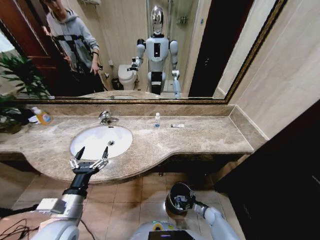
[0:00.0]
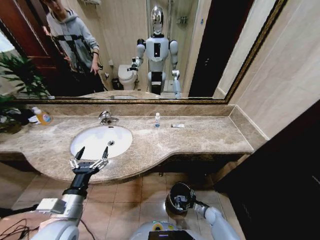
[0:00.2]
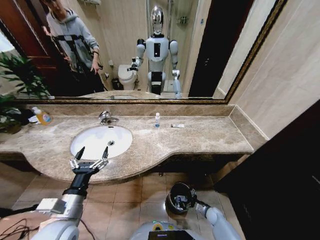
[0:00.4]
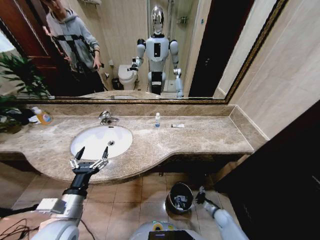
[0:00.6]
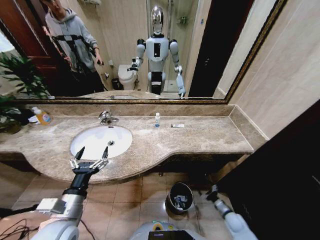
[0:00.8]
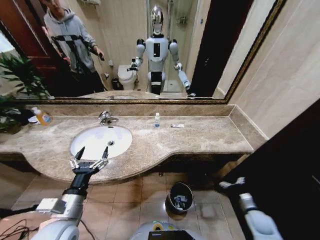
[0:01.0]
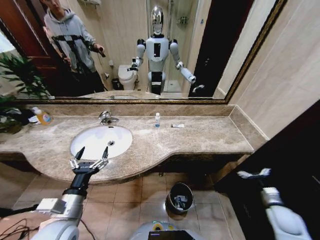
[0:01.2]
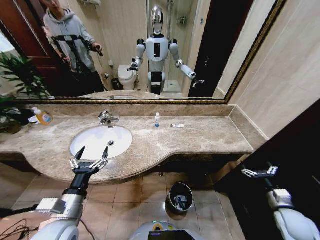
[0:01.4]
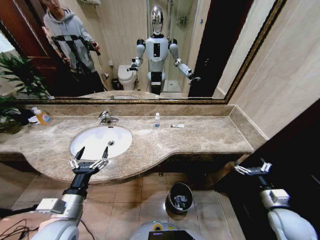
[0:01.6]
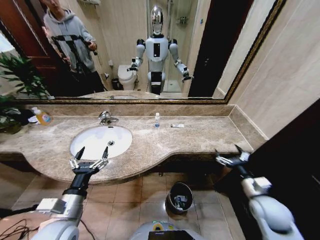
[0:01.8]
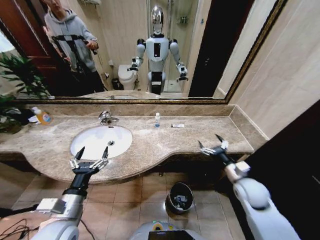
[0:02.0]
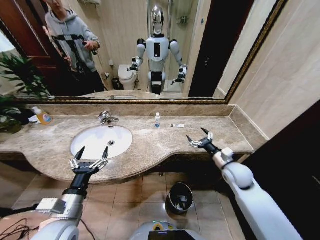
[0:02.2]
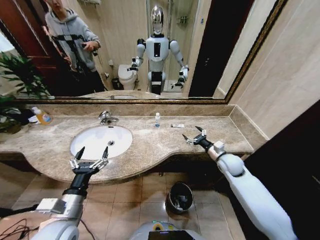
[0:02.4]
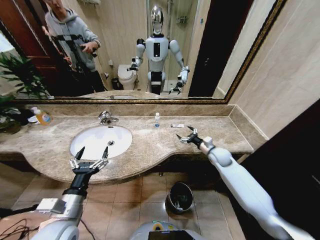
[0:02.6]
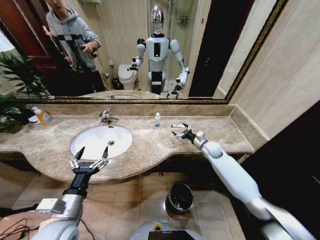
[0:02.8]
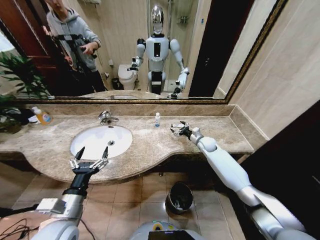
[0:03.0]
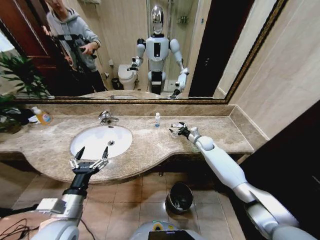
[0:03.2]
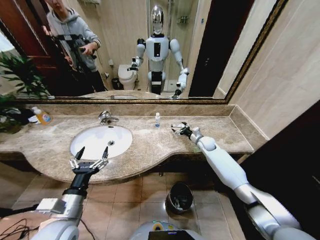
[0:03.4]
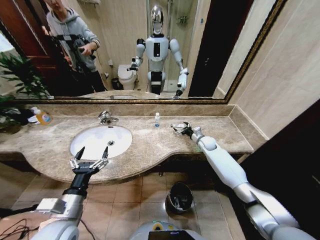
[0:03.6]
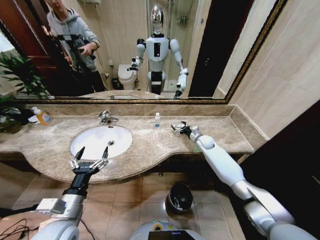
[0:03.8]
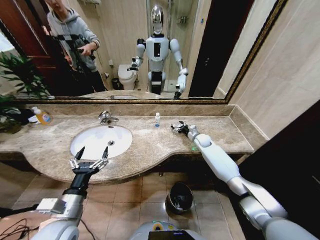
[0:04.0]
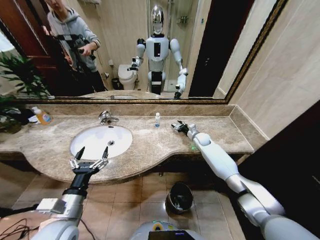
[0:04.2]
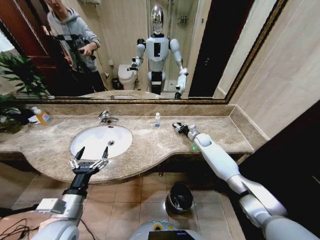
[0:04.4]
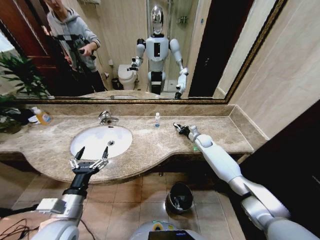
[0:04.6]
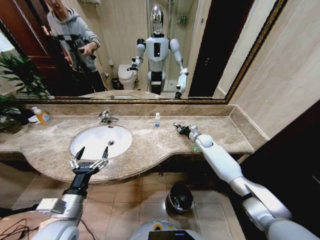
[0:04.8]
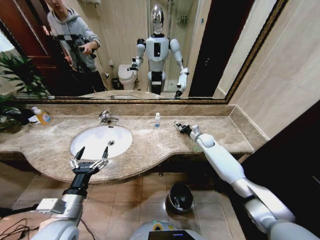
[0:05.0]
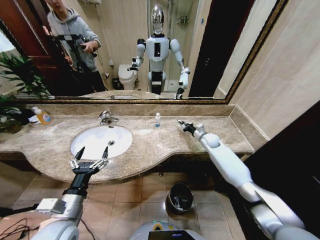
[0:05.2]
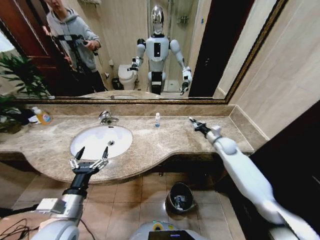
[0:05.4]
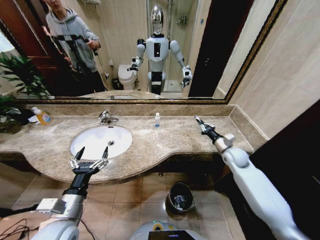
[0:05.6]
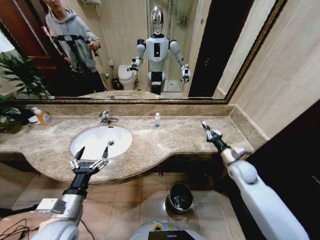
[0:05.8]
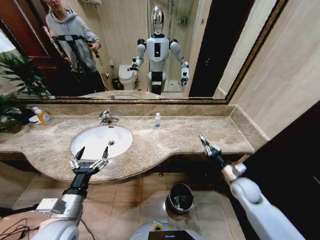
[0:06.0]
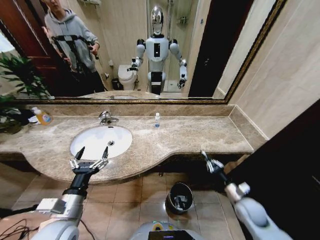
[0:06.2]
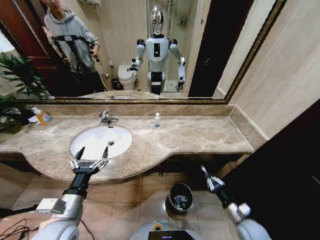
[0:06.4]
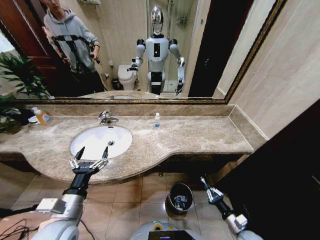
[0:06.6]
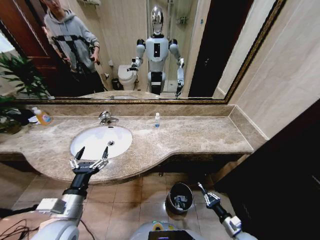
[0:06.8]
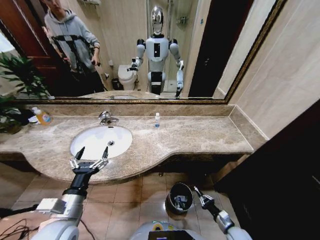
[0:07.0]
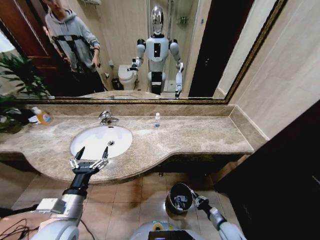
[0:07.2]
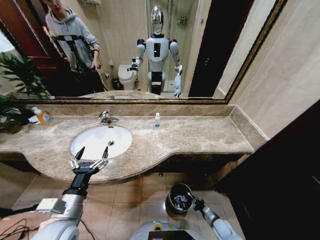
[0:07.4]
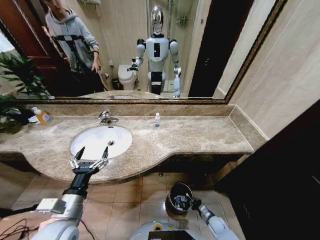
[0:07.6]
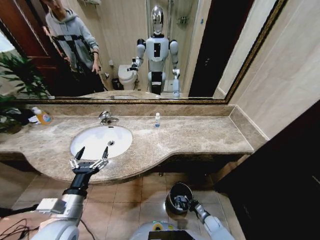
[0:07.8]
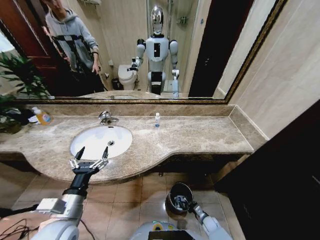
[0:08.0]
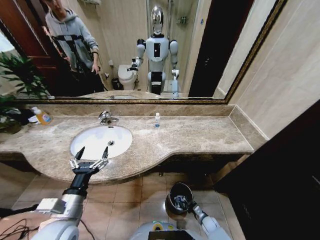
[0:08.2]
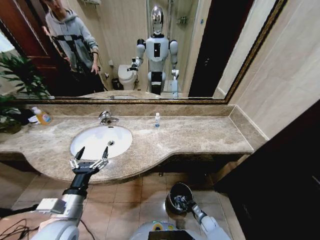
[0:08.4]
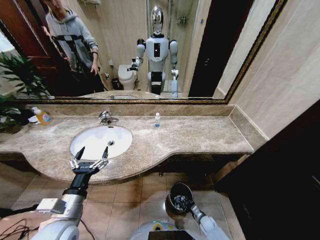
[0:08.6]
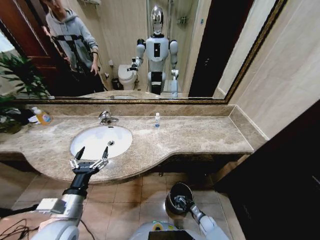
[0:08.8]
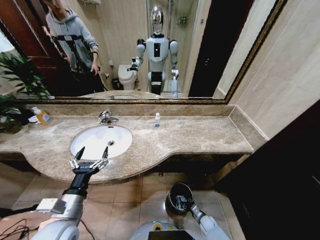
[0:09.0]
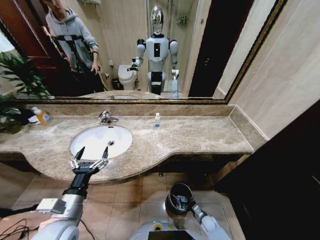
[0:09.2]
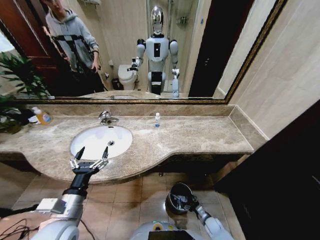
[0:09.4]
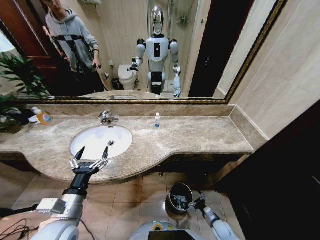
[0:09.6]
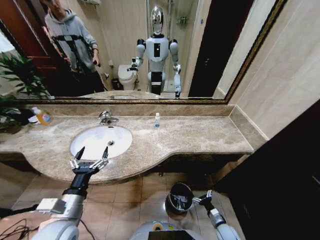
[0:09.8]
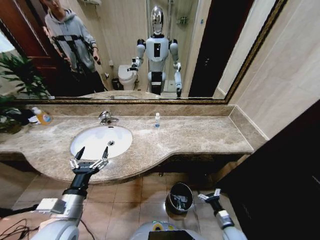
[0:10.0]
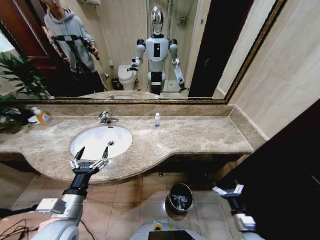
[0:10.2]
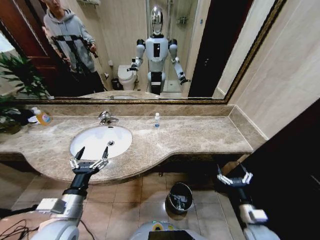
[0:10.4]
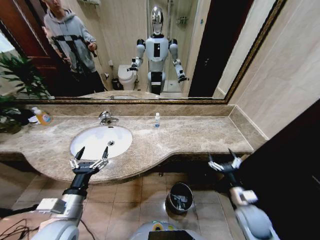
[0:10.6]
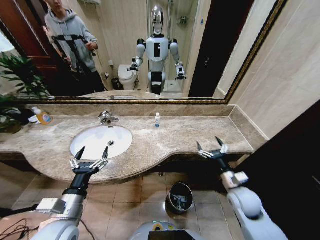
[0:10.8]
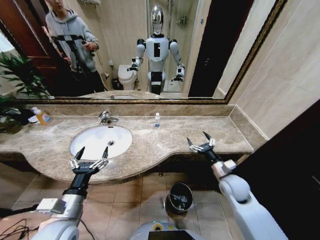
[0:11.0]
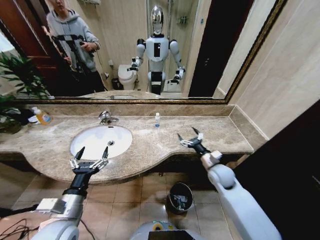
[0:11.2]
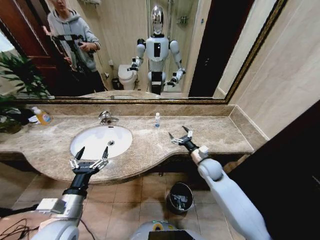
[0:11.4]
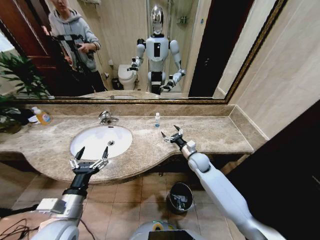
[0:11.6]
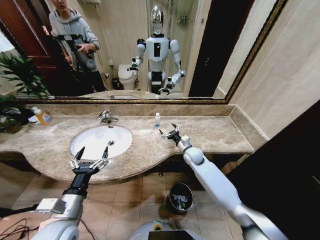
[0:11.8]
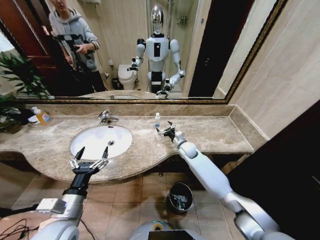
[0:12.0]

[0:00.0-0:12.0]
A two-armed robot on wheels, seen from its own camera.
Task of the whole recording: Pick up the trash from the sink and place it in the trash bin.
0.0 to 1.6 s: The right gripper is displaced upward by some 35 cm.
1.6 to 3.0 s: The right gripper travels forward and to the left by approximately 40 cm.
3.0 to 4.4 s: The right gripper closes its fingers.
4.4 to 6.0 s: The right gripper shifts roughly 25 cm backward, and closes.
6.0 to 7.6 s: The right gripper shifts roughly 30 cm downward.
7.6 to 9.0 s: The grippers stay close to where they were, moving slightly.
9.0 to 10.4 s: The right gripper moves upward, about 30 cm, and opens its fingers.
10.4 to 12.0 s: The right gripper travels forward and to the left by approximately 40 cm.

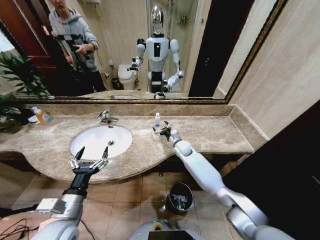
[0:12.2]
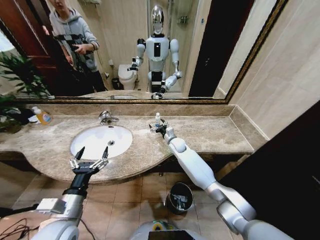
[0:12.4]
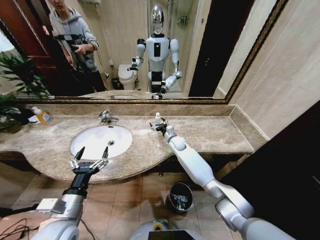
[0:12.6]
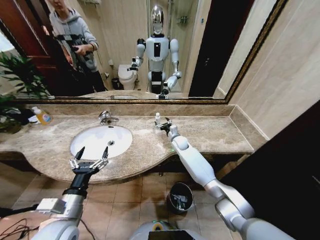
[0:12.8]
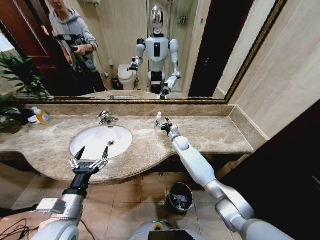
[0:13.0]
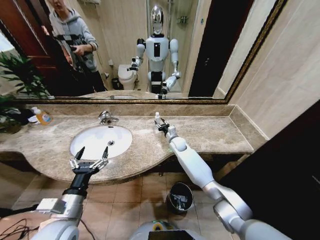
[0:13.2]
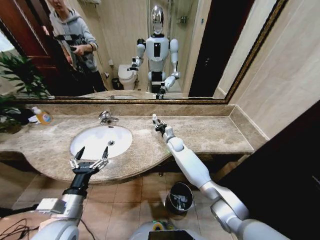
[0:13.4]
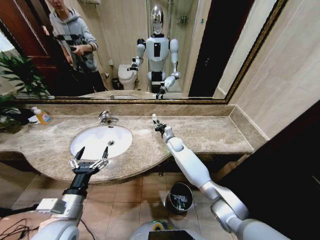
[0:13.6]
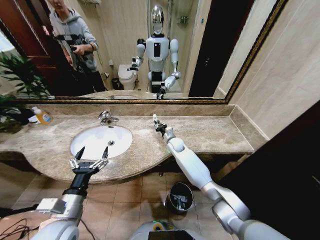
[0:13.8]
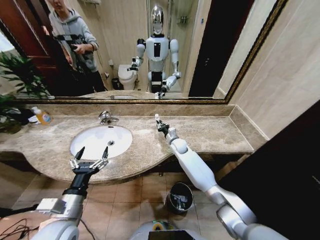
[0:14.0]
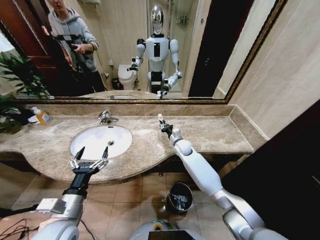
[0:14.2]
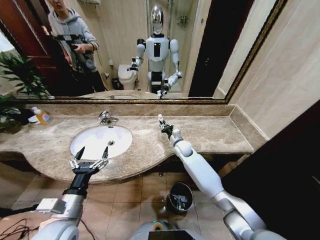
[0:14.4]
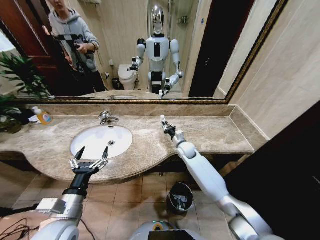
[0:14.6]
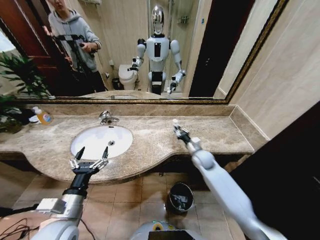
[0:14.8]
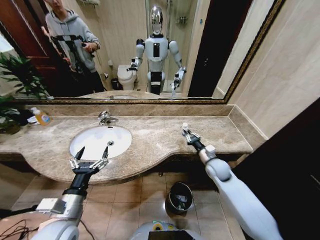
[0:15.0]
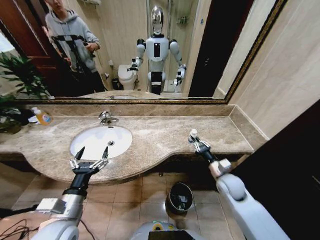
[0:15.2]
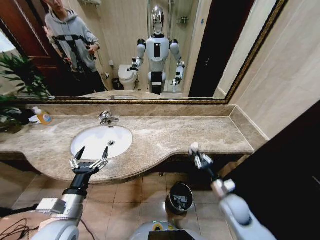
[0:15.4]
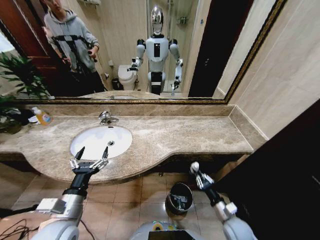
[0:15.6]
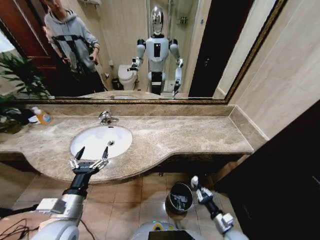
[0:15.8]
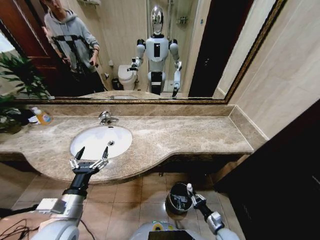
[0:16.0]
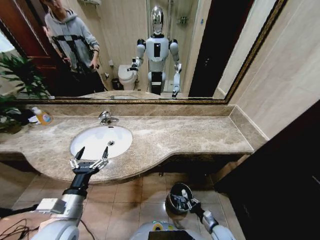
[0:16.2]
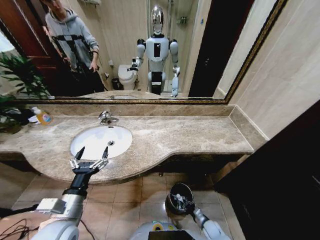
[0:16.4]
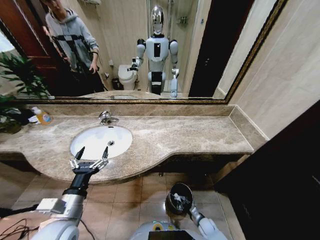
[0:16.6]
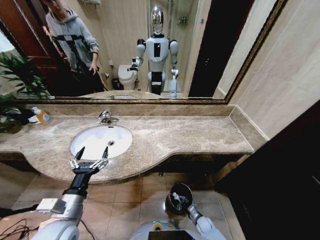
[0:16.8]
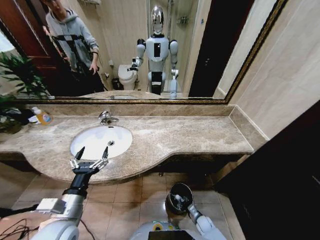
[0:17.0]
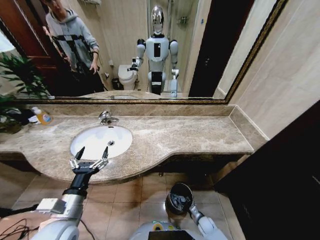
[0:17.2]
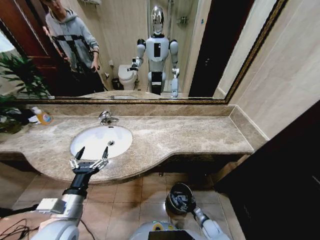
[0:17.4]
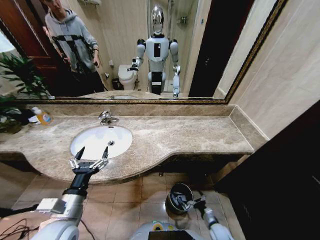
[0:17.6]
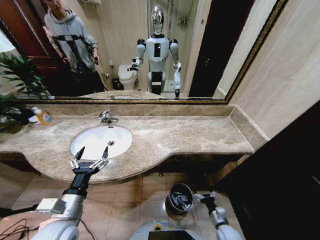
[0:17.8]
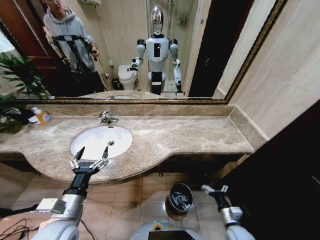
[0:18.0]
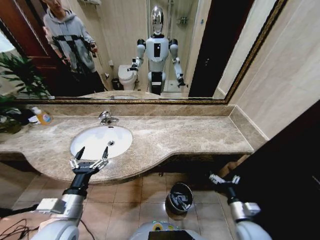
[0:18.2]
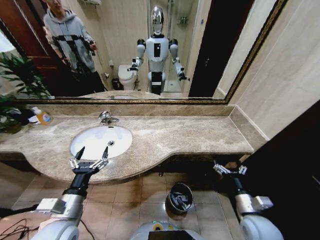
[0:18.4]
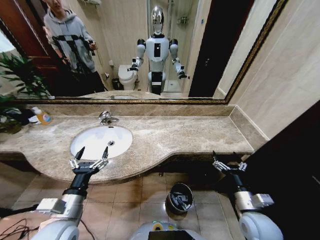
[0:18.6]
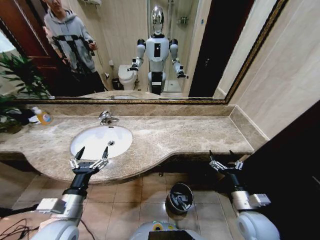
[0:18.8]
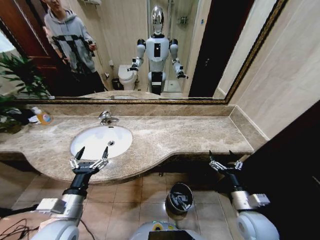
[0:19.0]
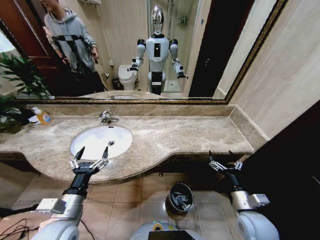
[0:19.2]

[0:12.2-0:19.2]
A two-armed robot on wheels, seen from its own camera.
Task of the whole recording: Pick up the trash from the sink and place it in the trash bin.
12.2 to 13.6 s: The right gripper closes its fingers.
13.6 to 15.0 s: The right gripper goes some 25 cm to the right and backward.
15.0 to 16.4 s: The right gripper moves downward and backward, approximately 35 cm.
16.4 to 17.8 s: The right gripper moves upward, roughly 10 cm, and opens.
17.8 to 19.2 s: The right gripper travels upward by approximately 25 cm.

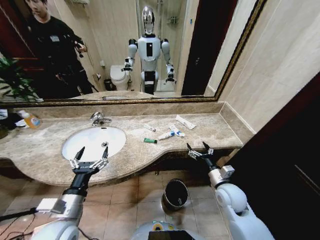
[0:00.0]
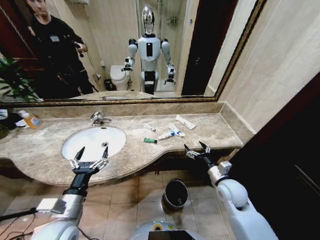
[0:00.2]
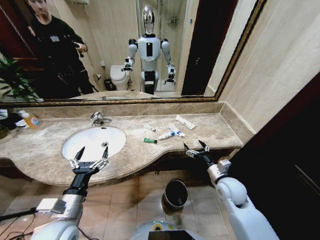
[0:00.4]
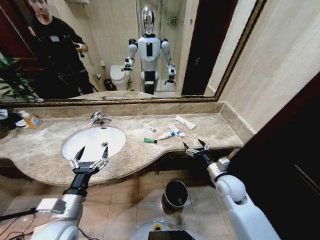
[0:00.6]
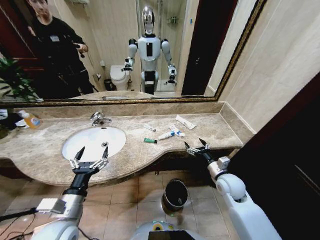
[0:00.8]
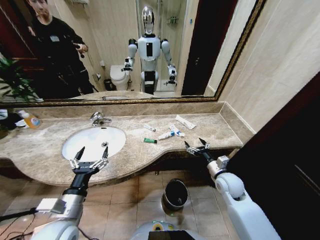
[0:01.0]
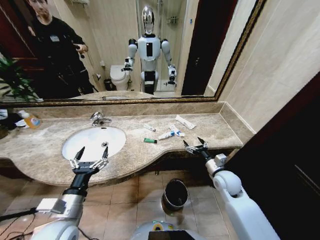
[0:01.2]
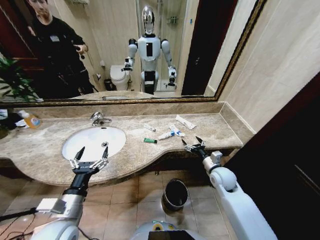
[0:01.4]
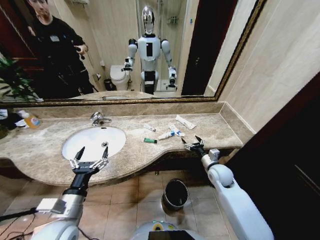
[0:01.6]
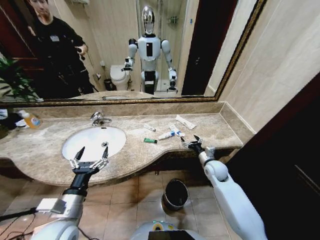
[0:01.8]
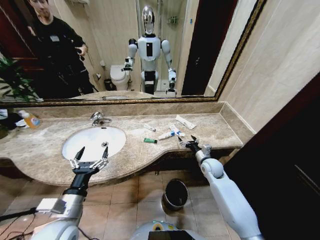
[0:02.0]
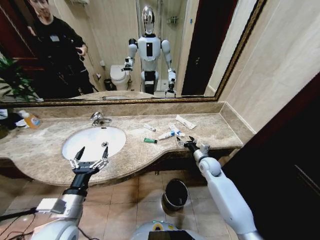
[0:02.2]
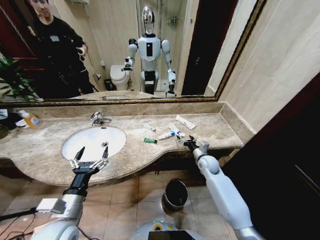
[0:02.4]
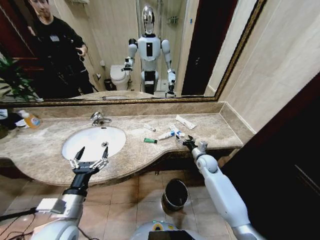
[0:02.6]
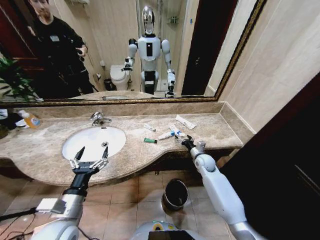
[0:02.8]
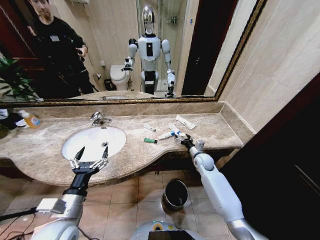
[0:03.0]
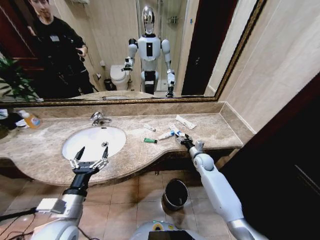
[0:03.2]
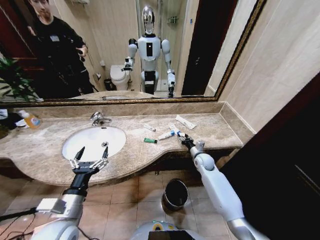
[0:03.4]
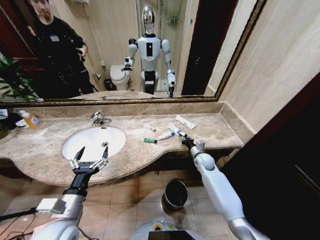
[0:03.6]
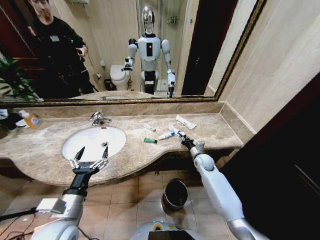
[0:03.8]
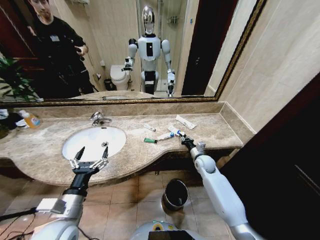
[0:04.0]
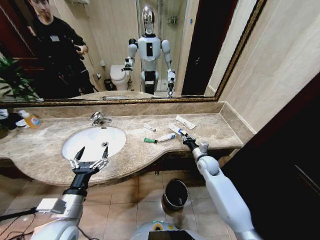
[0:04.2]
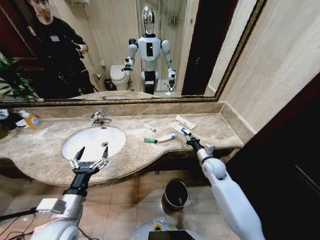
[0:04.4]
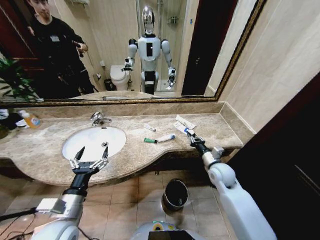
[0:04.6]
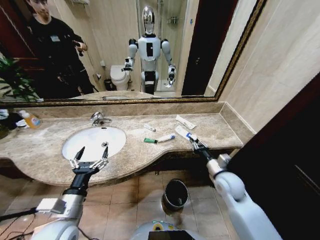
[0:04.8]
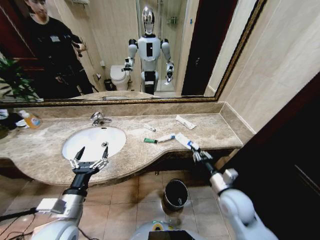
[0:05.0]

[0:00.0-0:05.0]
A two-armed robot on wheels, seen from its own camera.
Task of the whole recording: Pick up the trash from the sink and place it in the trash bin.
1.6 to 3.4 s: The right gripper goes roughly 10 cm forward, and closes its fingers.
3.4 to 5.0 s: The right gripper travels backward by roughly 20 cm, and closes its fingers.
